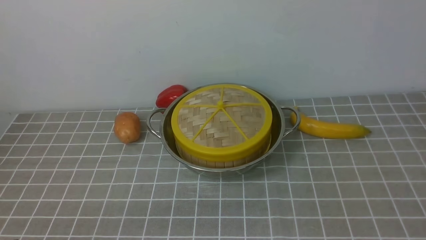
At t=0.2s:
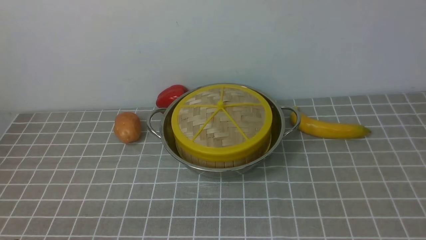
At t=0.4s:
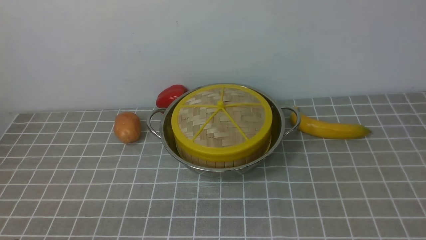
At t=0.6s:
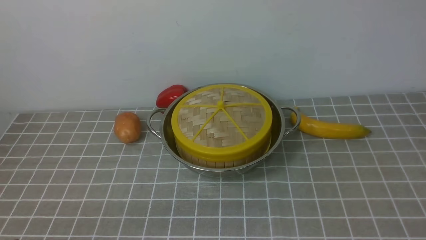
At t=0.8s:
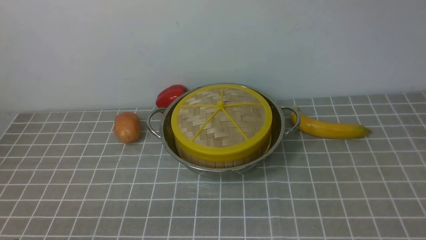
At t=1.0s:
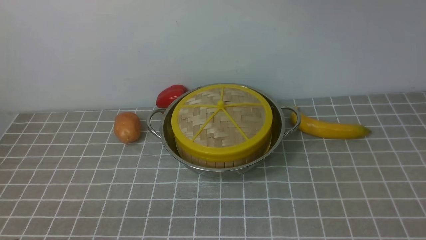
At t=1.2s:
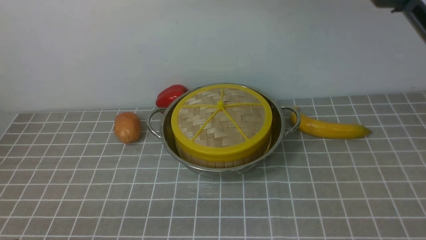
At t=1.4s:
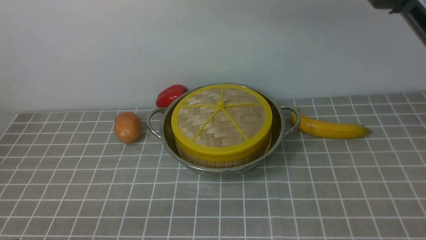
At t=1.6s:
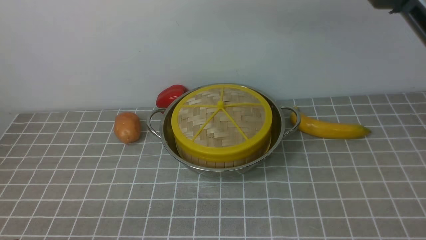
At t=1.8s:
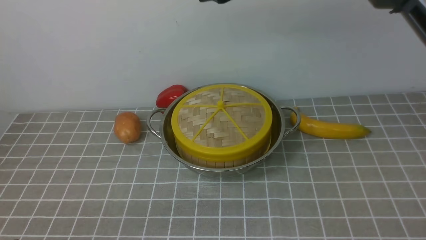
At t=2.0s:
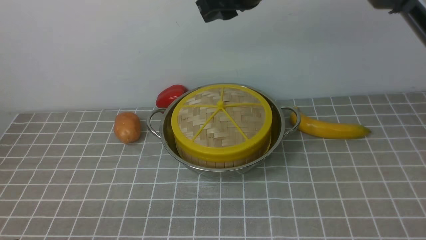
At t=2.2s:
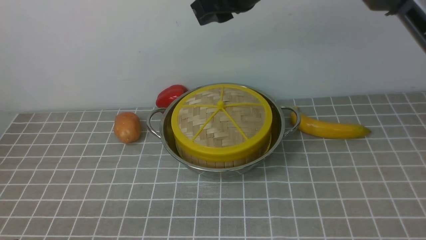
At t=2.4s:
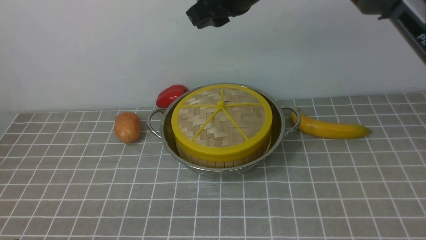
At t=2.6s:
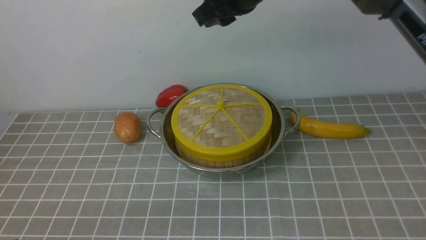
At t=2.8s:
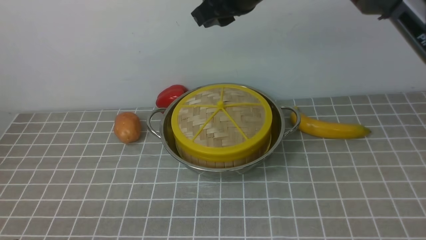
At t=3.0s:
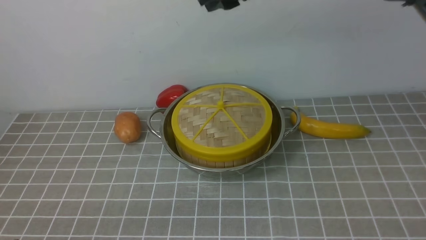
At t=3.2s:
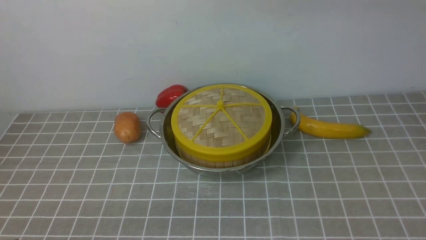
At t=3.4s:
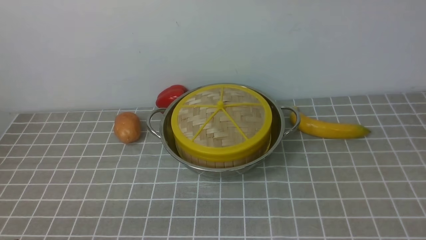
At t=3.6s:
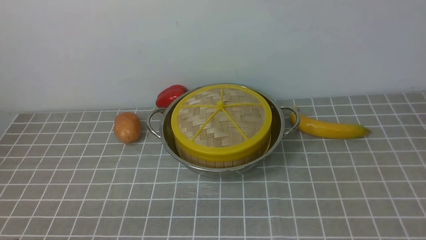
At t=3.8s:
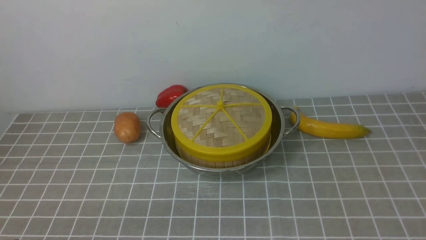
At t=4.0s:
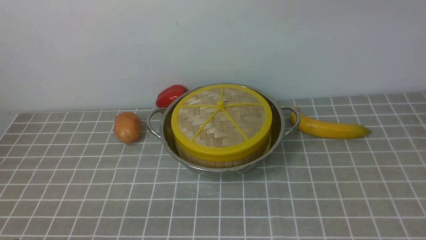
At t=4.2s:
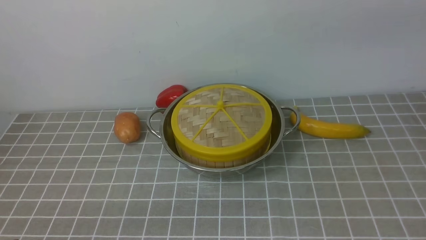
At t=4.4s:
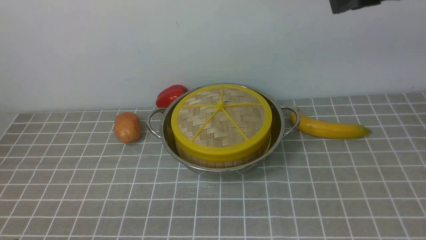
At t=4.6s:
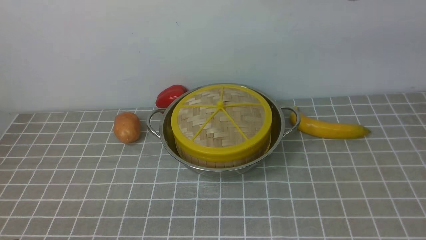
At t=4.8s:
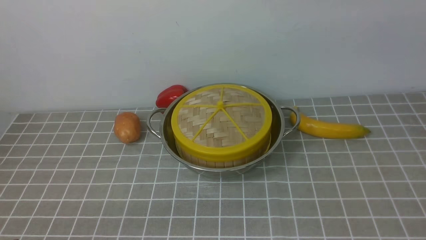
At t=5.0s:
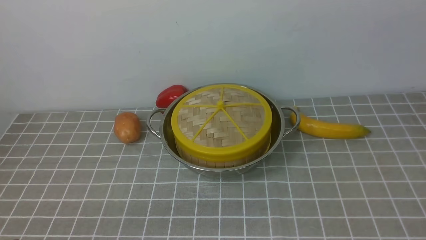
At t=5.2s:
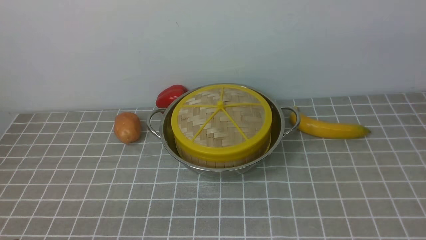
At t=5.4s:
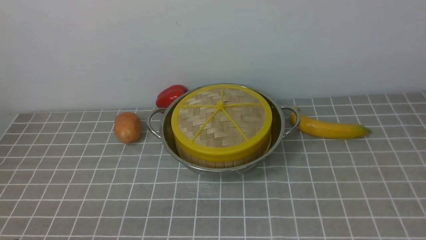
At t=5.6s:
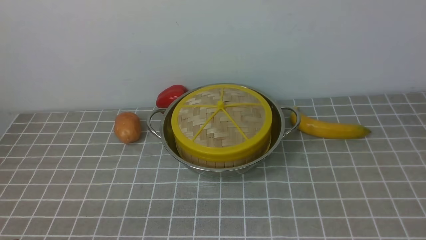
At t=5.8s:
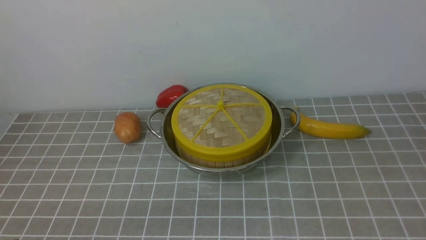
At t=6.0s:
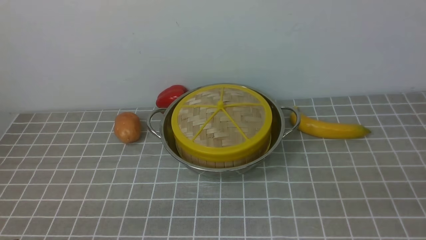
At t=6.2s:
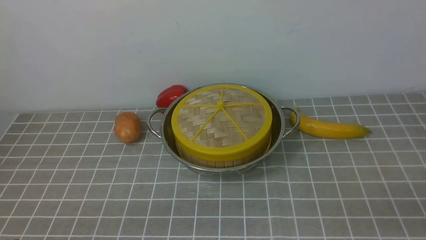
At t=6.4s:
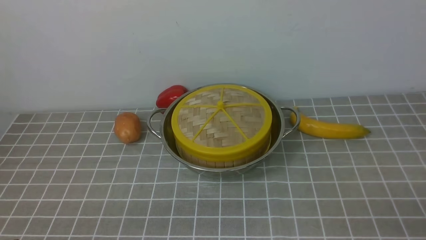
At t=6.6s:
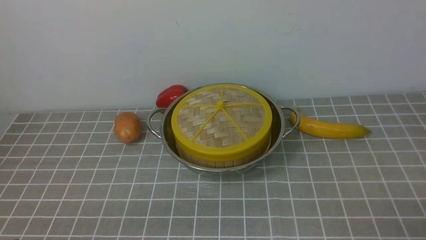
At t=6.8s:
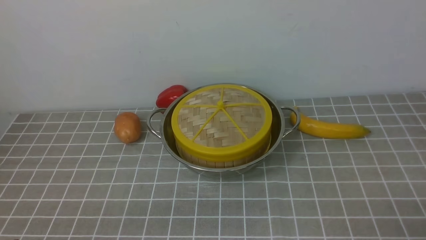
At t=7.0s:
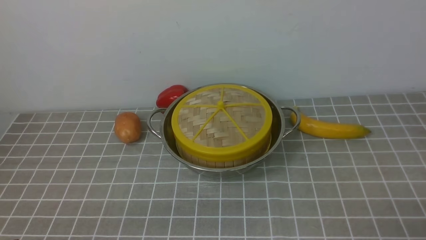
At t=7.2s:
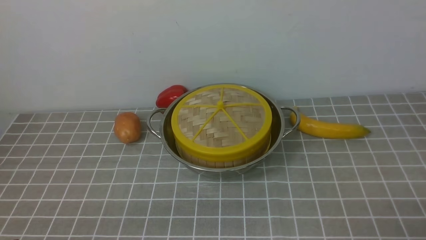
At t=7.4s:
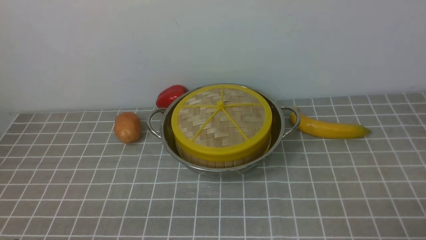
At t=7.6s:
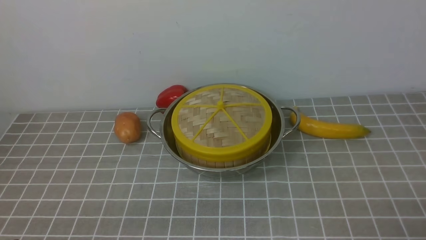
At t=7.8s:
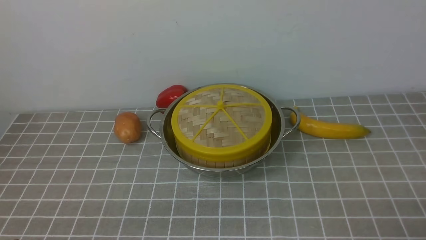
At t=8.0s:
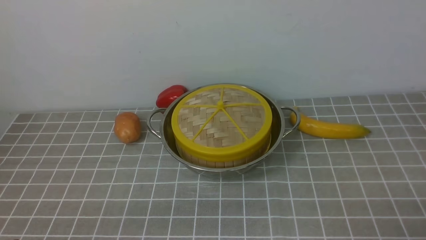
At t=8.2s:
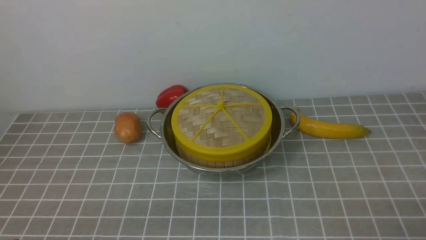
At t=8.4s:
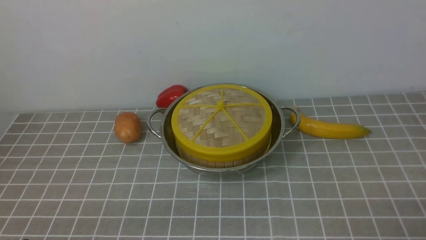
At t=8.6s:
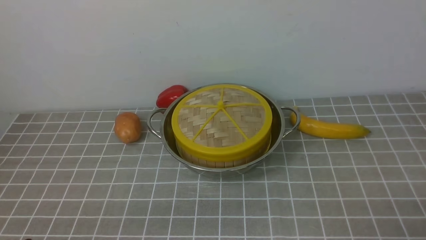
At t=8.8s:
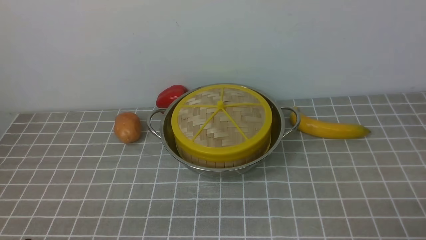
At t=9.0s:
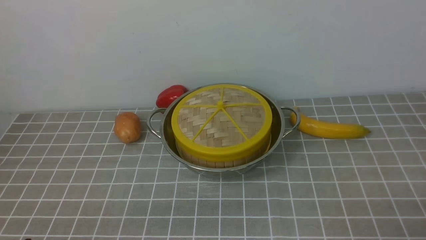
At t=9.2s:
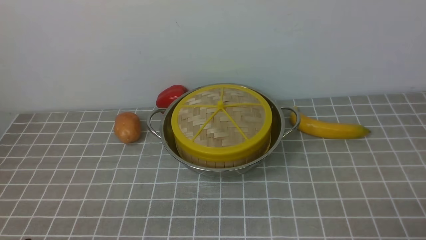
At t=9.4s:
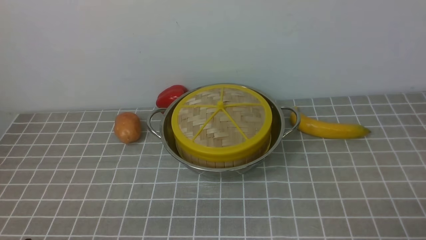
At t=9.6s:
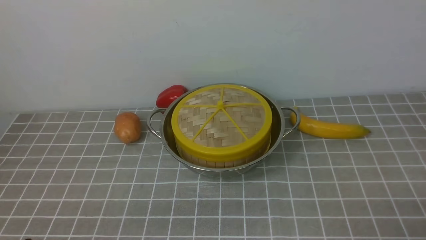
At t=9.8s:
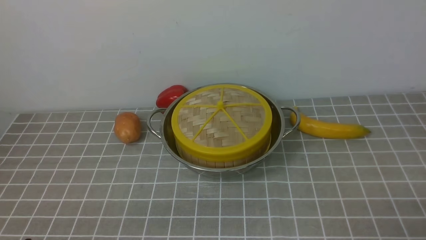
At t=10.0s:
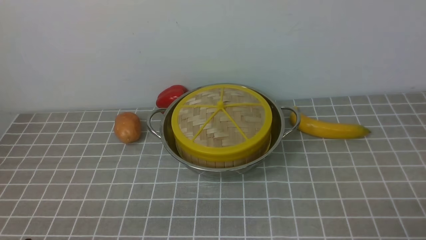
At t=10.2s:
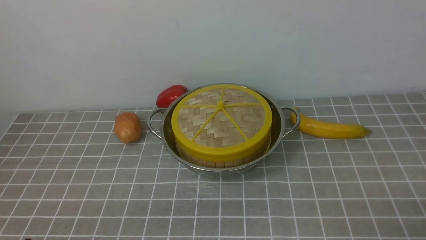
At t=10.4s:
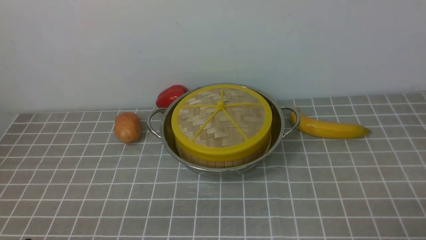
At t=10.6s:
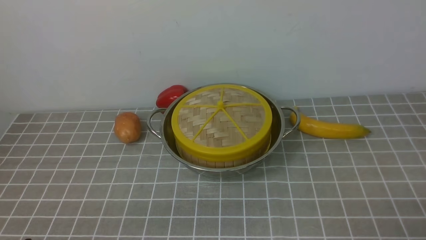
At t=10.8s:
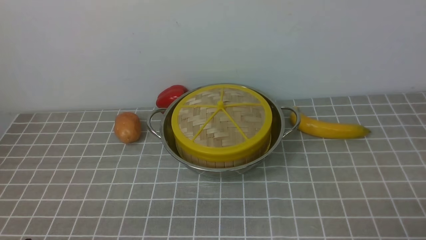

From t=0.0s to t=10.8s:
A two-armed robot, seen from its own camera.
Task of the whole recording: place the steamer in the pot on the grey tablecloth, and put the lid on the steamer.
From t=0.0s to t=1.6s: The right gripper shifts about 20 cm to the left, downward and forward, and opens its fingers.
From t=1.6s to t=3.0s: The grippers move only a little.
From t=3.0s to t=4.6s: The right gripper heads to the right and backward, covering approximately 15 cm.
From t=9.2s to t=10.8s: The two grippers keep their place.
